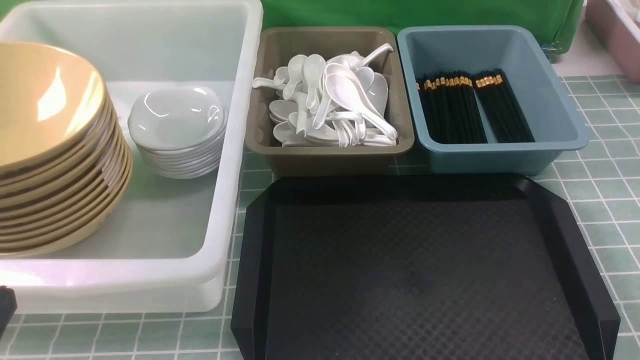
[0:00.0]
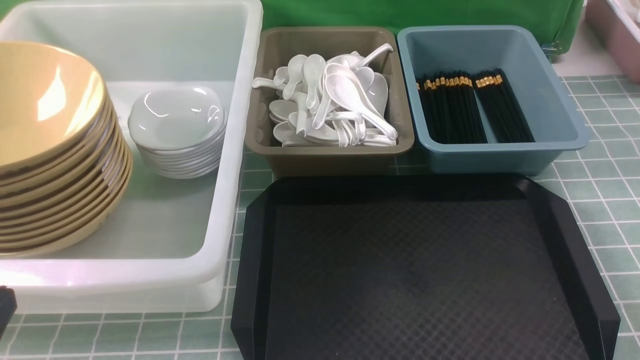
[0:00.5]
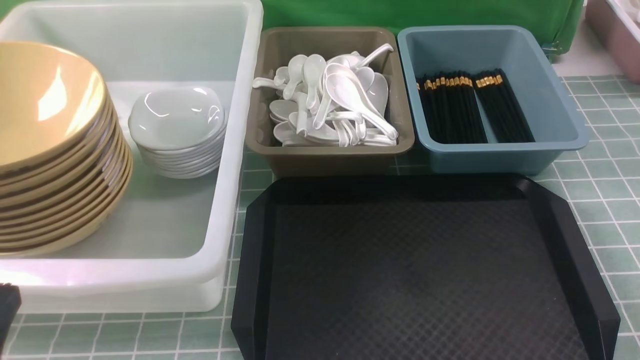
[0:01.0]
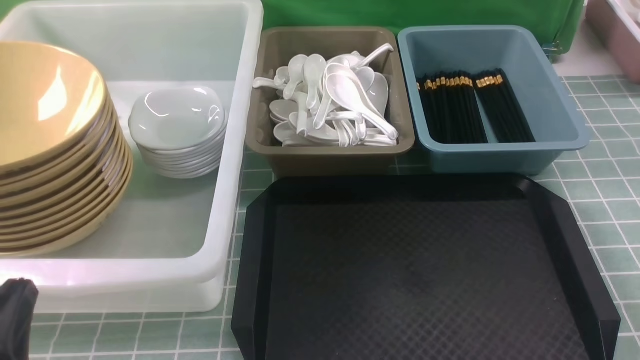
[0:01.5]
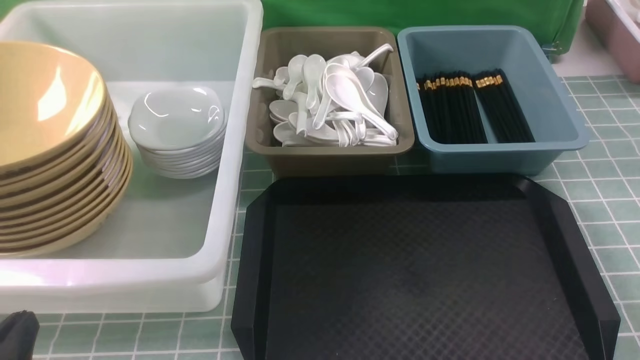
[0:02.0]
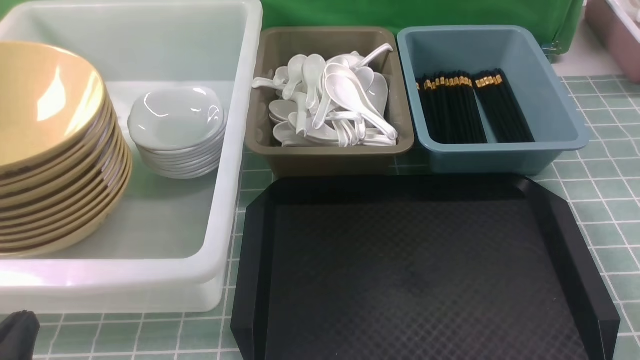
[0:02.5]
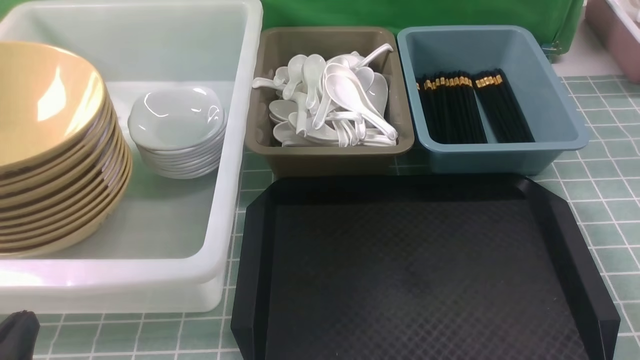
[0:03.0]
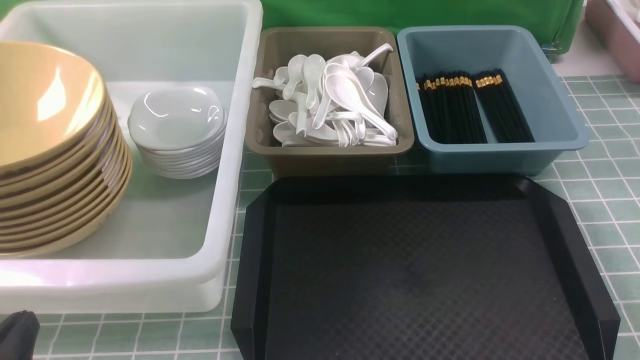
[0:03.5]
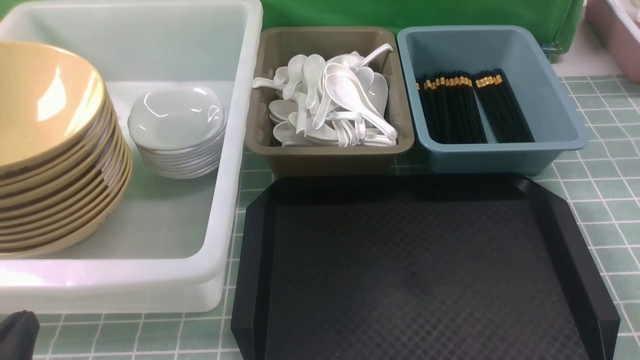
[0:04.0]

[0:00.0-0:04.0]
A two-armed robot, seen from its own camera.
Task of the whole recording: on blue table put chopsticks spoon bowls plates into blue grey white boxes.
0:00.0 to 0:02.0: The left gripper shifts approximately 10 cm downward.
0:02.0 to 0:04.0: Both grippers stay about where they are.
